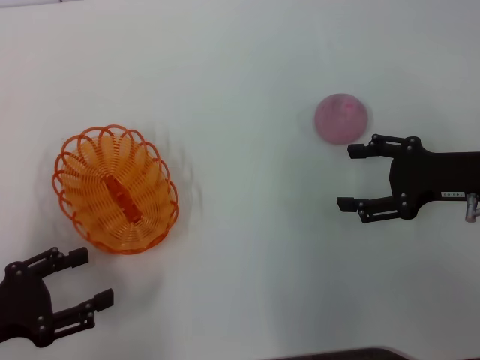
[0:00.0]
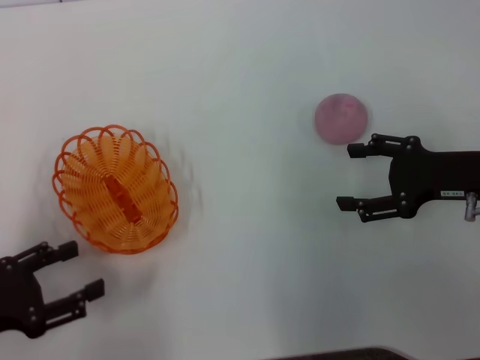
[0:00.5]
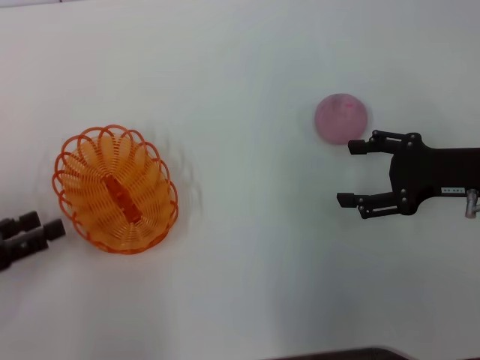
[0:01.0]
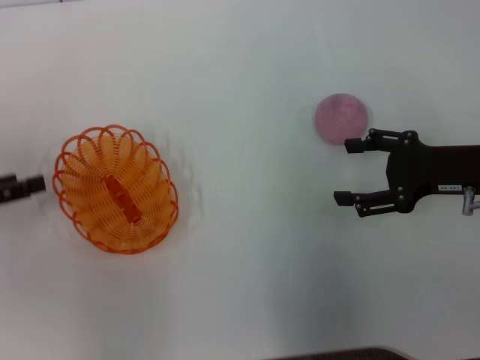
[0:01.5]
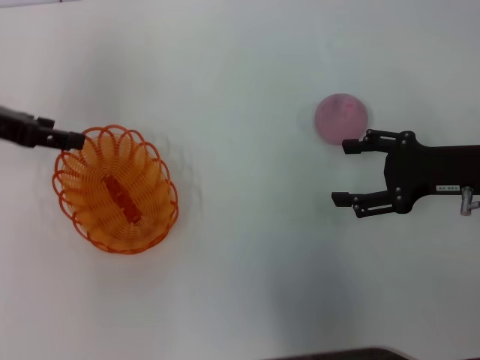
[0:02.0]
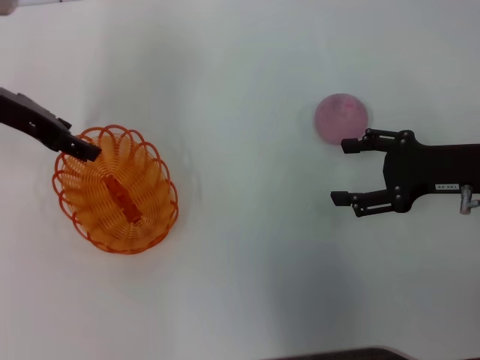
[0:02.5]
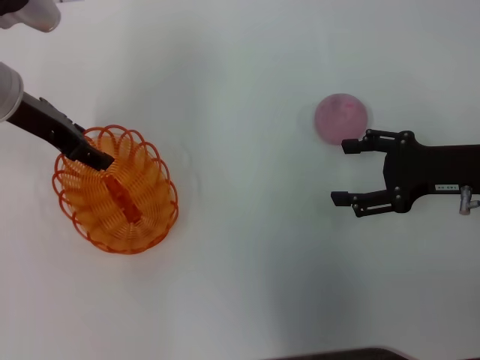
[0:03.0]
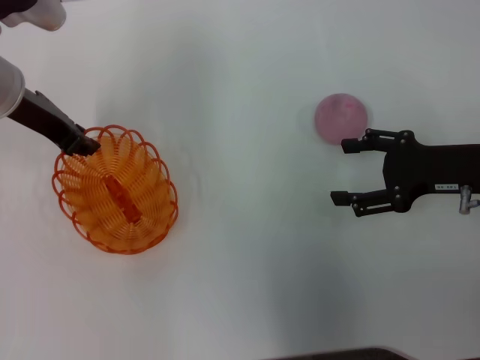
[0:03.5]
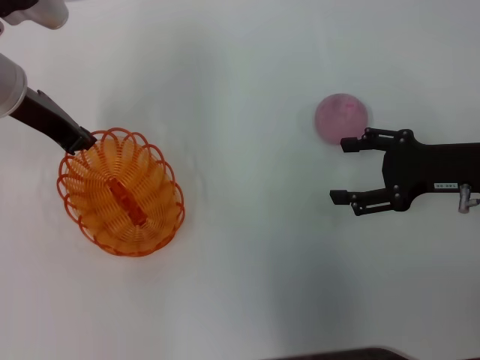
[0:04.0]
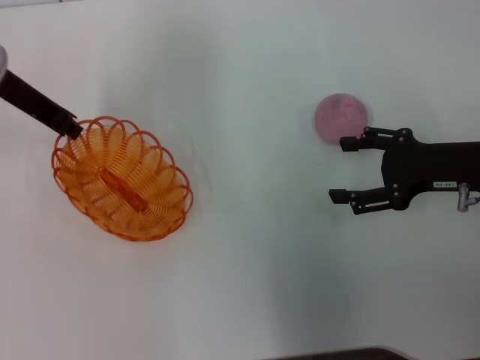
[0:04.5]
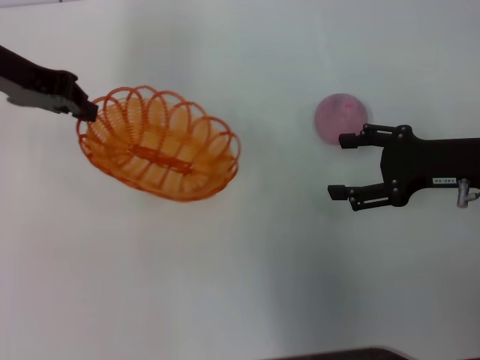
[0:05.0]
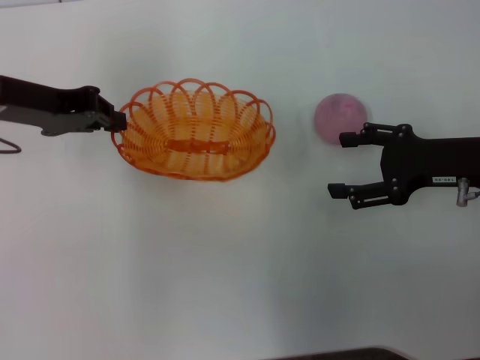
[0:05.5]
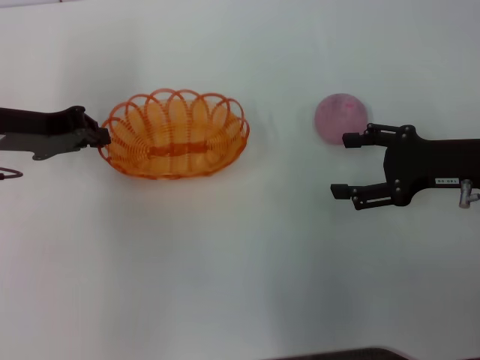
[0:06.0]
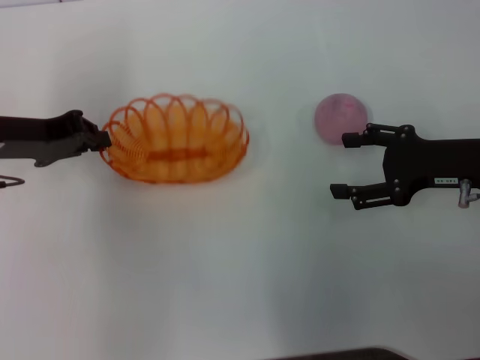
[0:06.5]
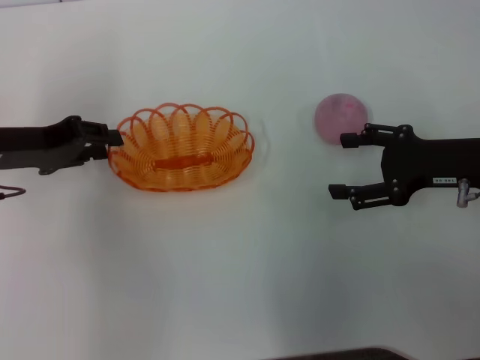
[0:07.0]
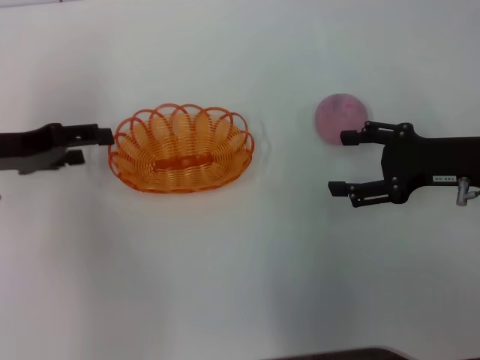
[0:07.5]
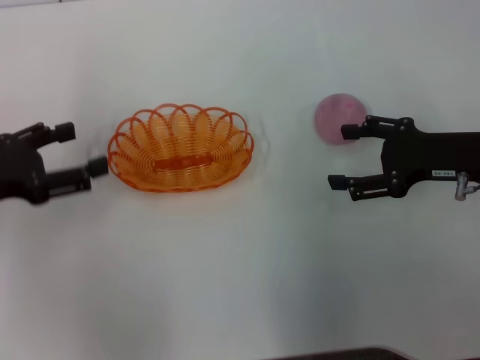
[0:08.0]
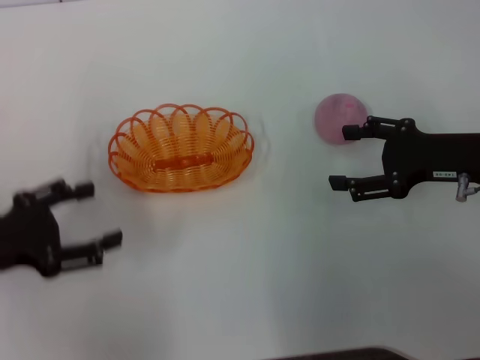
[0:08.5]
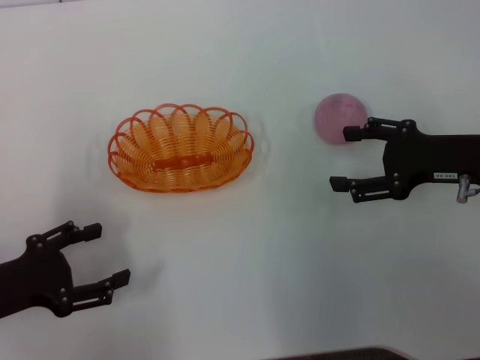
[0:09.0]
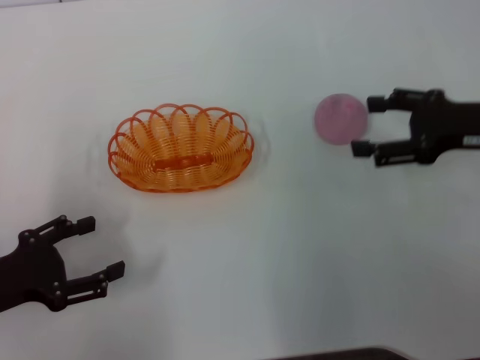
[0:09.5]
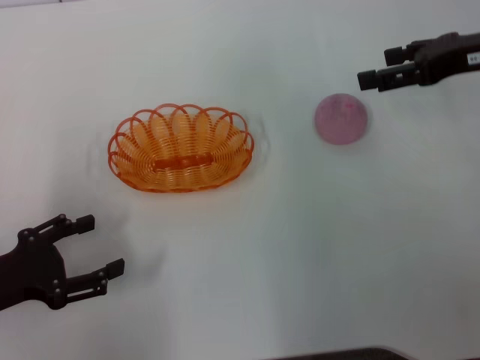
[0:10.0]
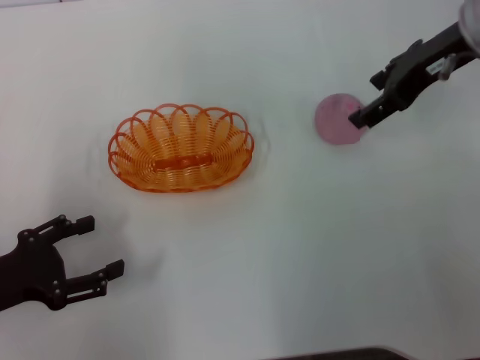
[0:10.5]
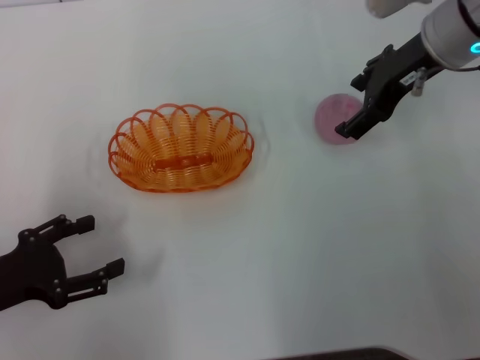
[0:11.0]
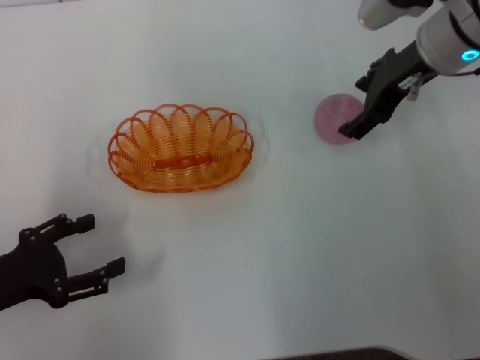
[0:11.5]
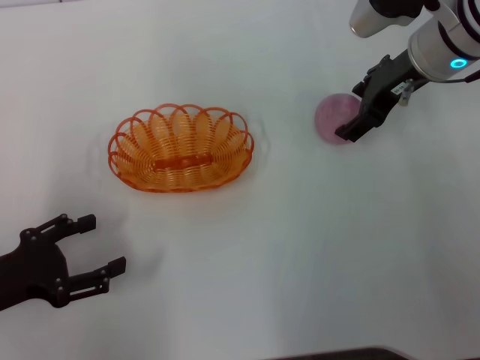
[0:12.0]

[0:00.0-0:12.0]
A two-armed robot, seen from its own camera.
Step, 0:00.0 to 0:04.5: Pick up the basket with the left gripper.
Step, 0:05.0 to 0:09.0: Place the basket in the center of view with the left gripper.
0:00.0 to 0:02.0: The left gripper goes about 20 cm forward and upward.
0:02.0 to 0:04.0: The left gripper travels to the right by roughly 10 cm, and closes up.
0:04.0 to 0:06.0: The left gripper moves approximately 5 cm.
0:06.0 to 0:08.0: The left gripper is displaced backward and to the left by about 10 cm, and opens up.
0:08.0 to 0:10.0: The left gripper travels backward and downward by about 10 cm; the right gripper is displaced upward and forward by approximately 10 cm.
0:10.0 to 0:12.0: The right gripper travels to the left by about 10 cm.

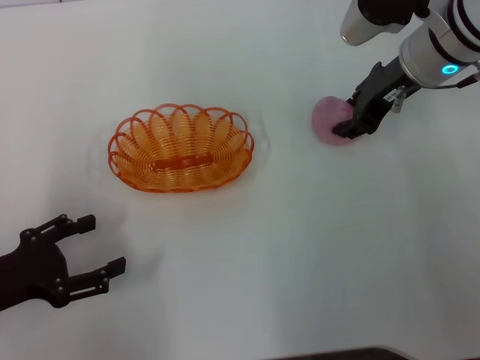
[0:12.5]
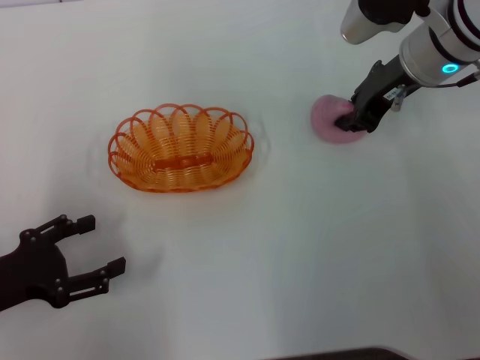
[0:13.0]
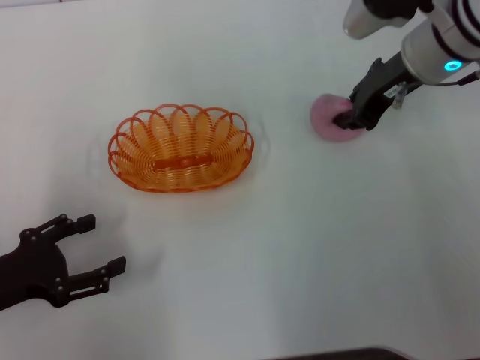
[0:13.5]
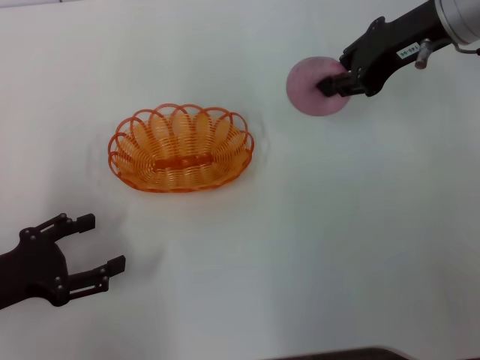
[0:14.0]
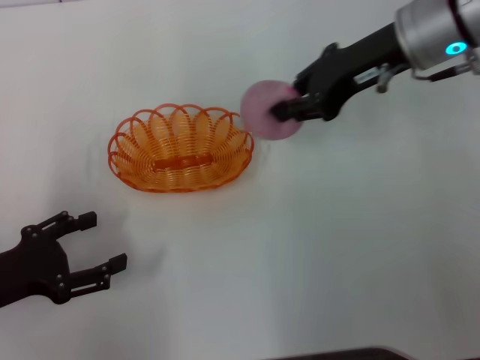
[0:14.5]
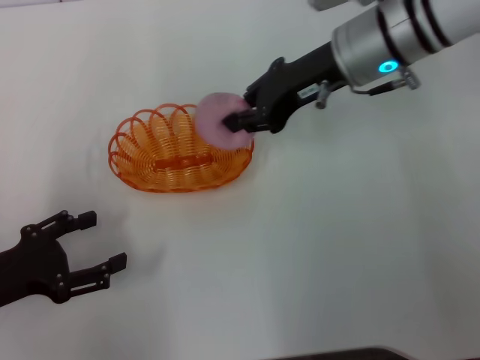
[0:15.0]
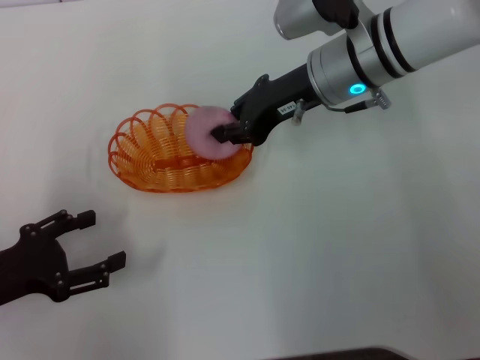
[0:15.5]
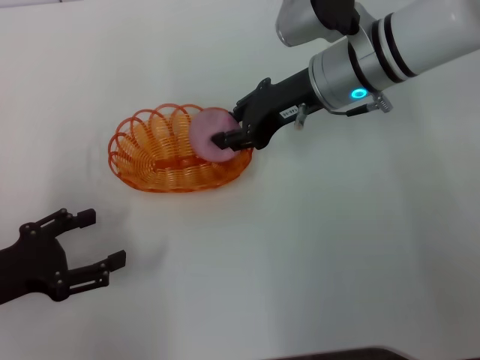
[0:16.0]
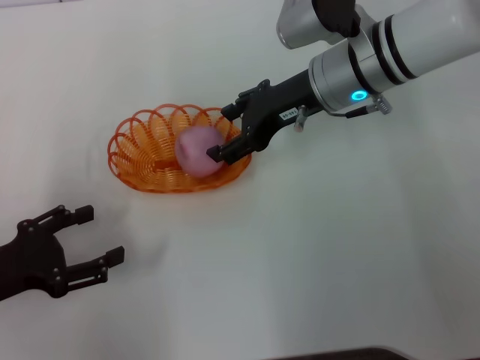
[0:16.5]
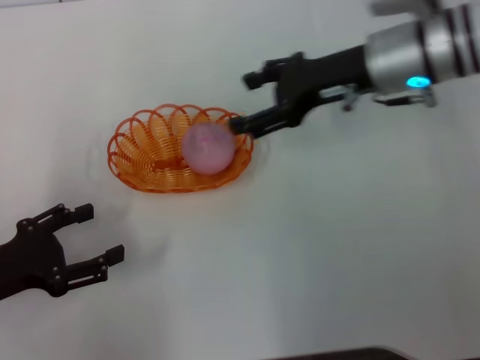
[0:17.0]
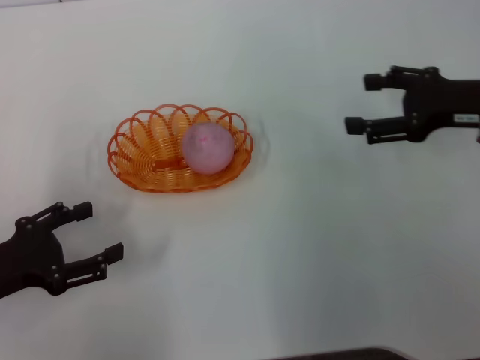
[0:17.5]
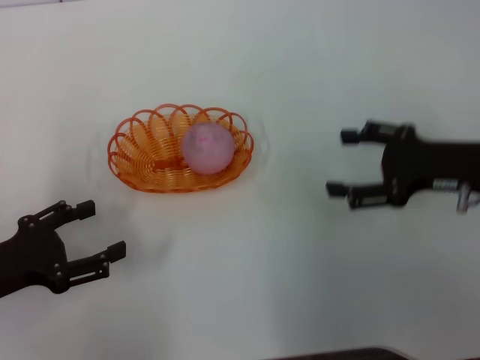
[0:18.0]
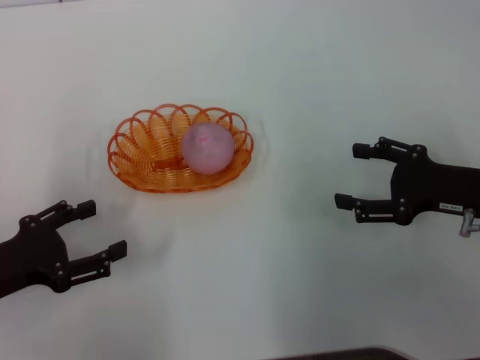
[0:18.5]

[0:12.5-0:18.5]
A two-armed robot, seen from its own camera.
Step, 0:14.5 to 0:17.0: Place the peach into the basket with the right gripper.
0:12.5 to 0:14.5: The right gripper closes up.
0:14.5 to 0:16.5: The right gripper heads downward and to the left, covering about 10 cm, and opens its fingers.
0:16.5 to 0:18.5: The right gripper shifts approximately 25 cm to the right, backward and downward.

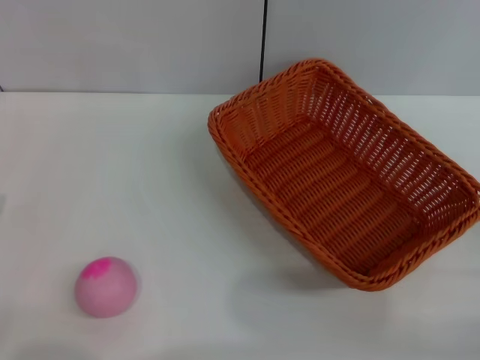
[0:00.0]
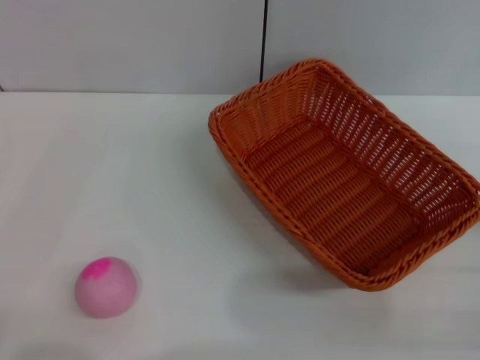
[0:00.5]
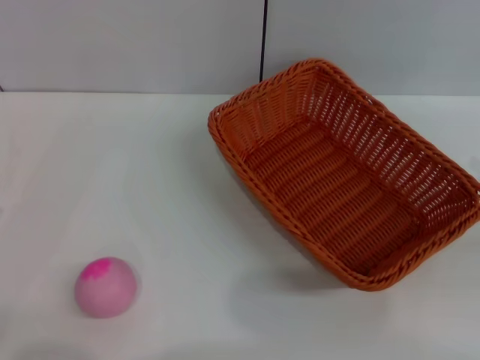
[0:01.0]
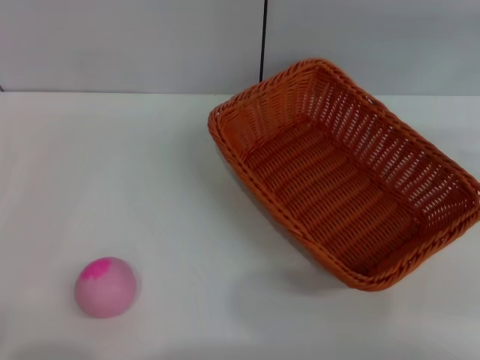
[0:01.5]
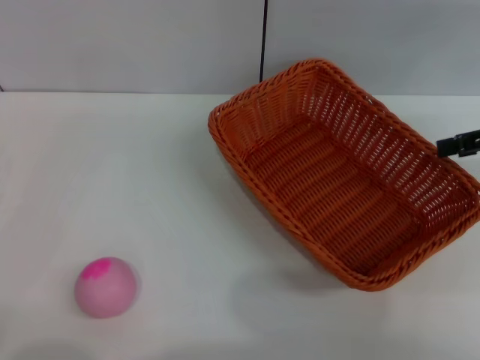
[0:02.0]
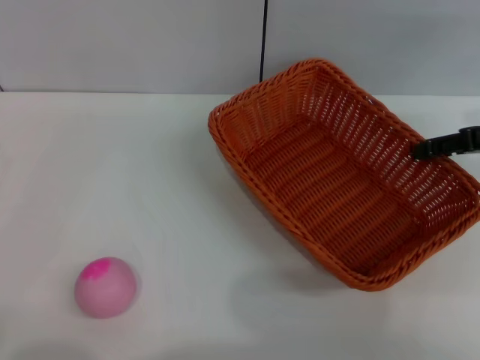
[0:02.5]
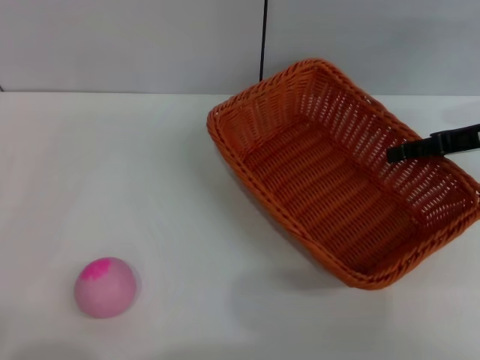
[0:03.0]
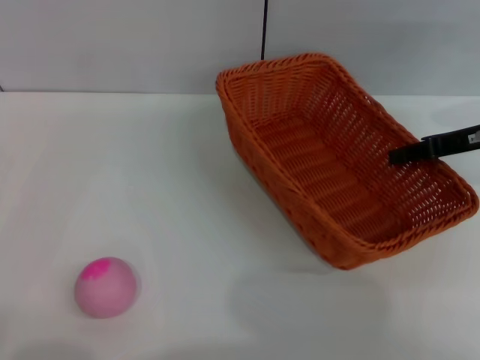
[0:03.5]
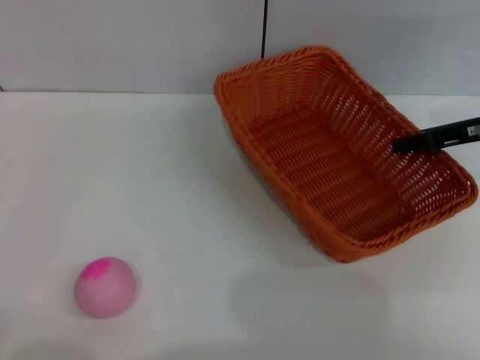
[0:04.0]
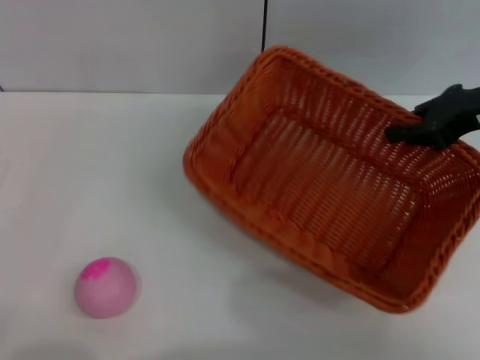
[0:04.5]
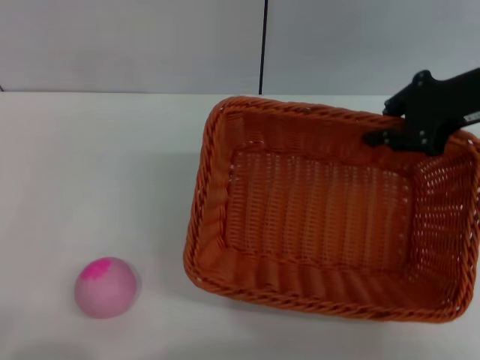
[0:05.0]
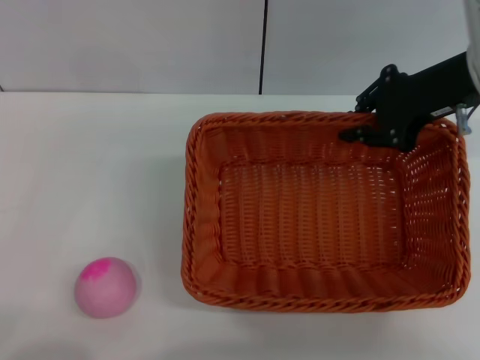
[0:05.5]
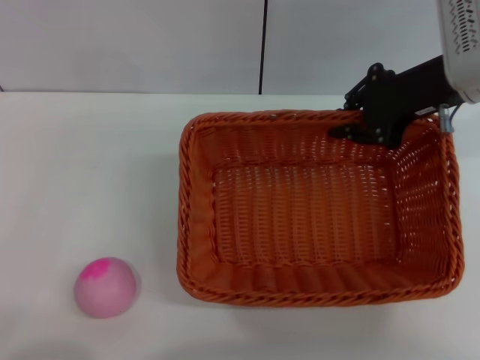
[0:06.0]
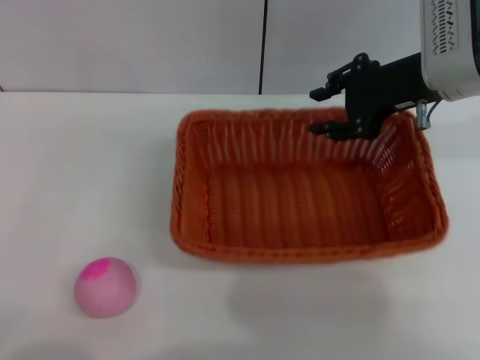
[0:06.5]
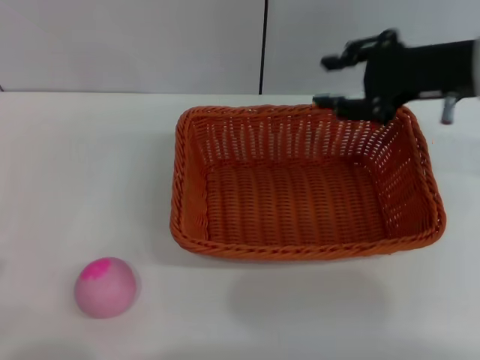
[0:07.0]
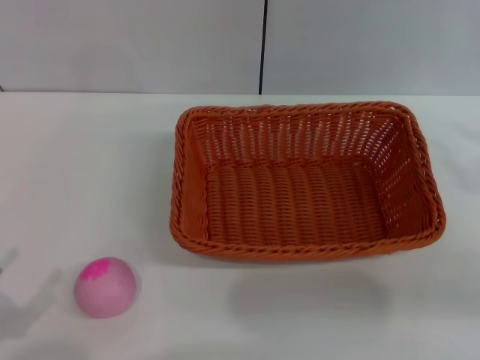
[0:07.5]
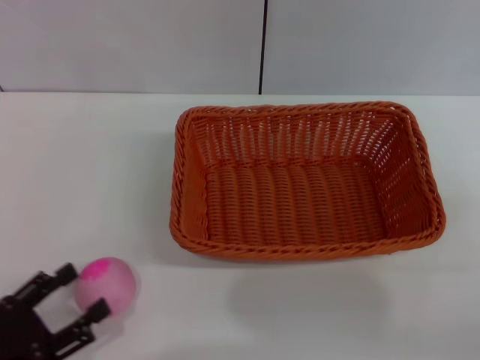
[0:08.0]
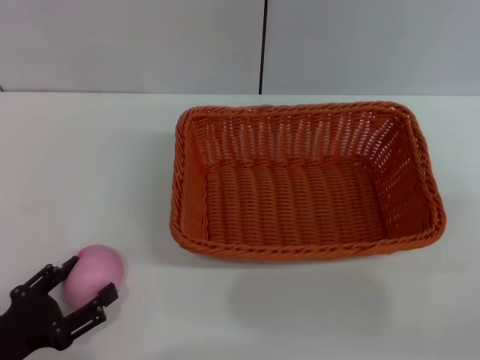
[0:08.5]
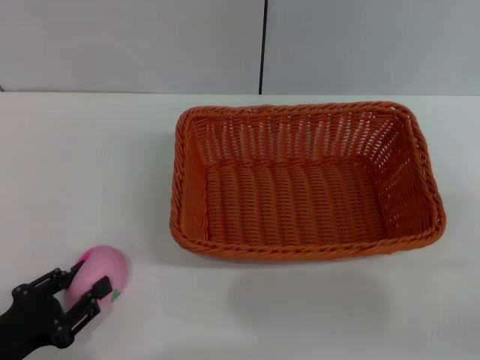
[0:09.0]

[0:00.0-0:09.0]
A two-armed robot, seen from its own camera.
Step, 0:00.0 to 0:04.0: Pick up the light basket with the right gripper.
Step, 0:04.5 to 0:06.5: Place the light basket in the center of view with the right gripper.
0:00.0 to 0:02.0: The right gripper is displaced forward and upward by about 25 cm.
0:02.0 to 0:04.5: The right gripper heads to the left, covering about 5 cm, and closes.
0:04.5 to 0:07.0: The right gripper travels to the left by some 5 cm, and opens its fingers.
0:07.0 to 0:09.0: The left gripper goes some 5 cm forward; the right gripper travels backward, to the right and downward by roughly 25 cm.
